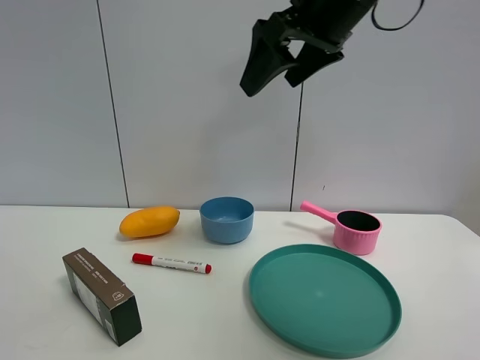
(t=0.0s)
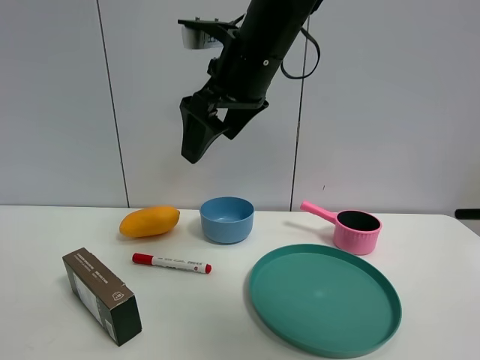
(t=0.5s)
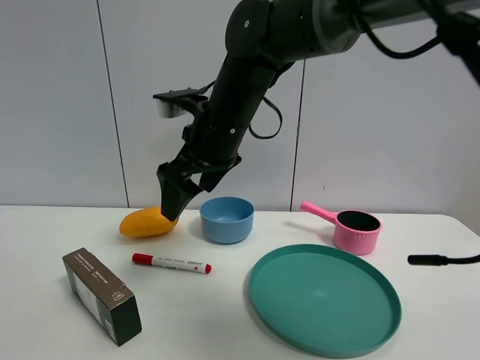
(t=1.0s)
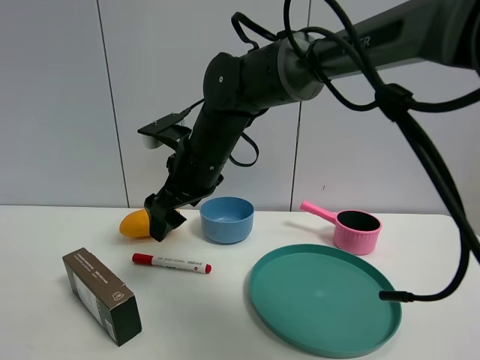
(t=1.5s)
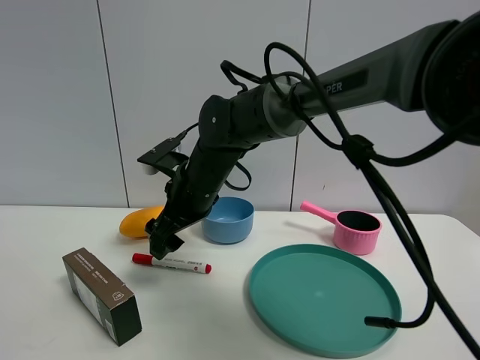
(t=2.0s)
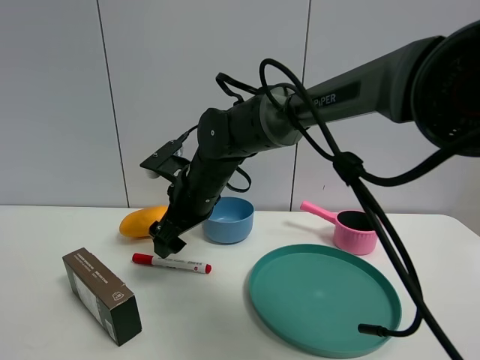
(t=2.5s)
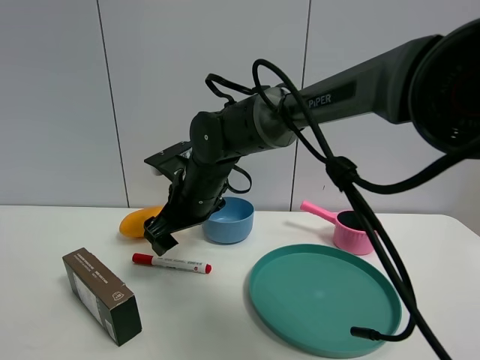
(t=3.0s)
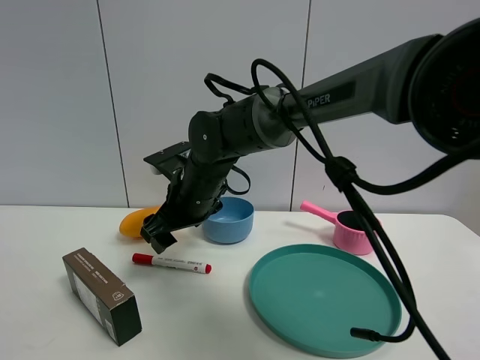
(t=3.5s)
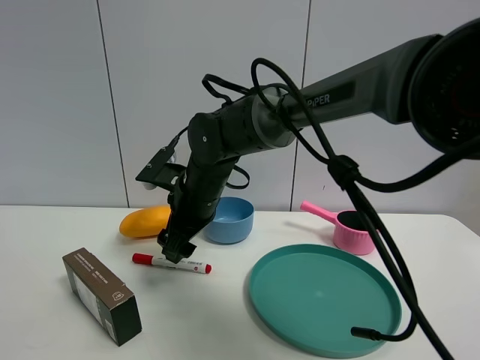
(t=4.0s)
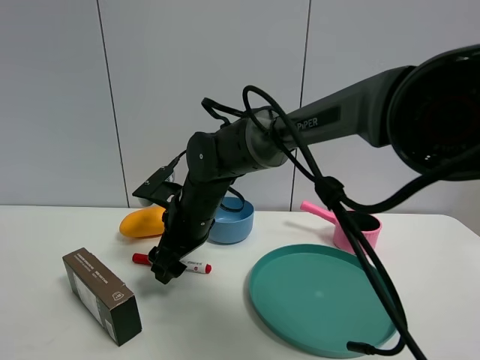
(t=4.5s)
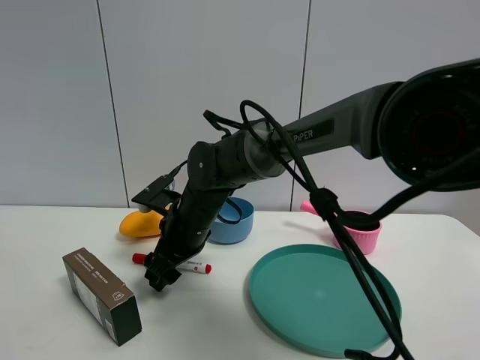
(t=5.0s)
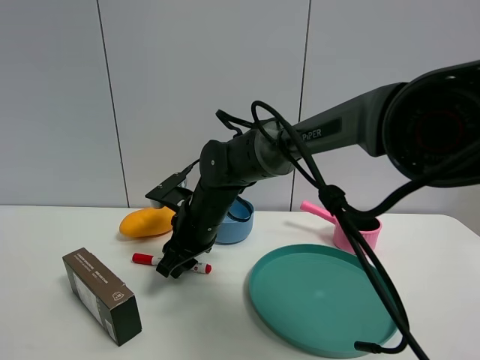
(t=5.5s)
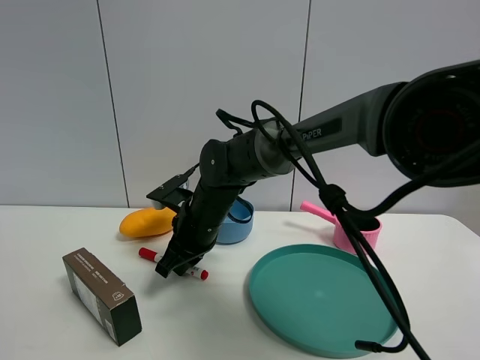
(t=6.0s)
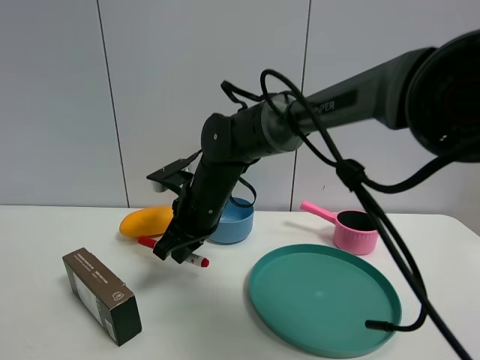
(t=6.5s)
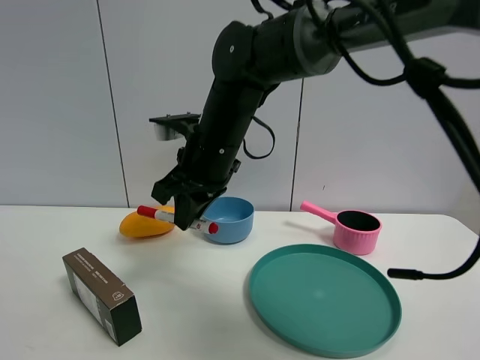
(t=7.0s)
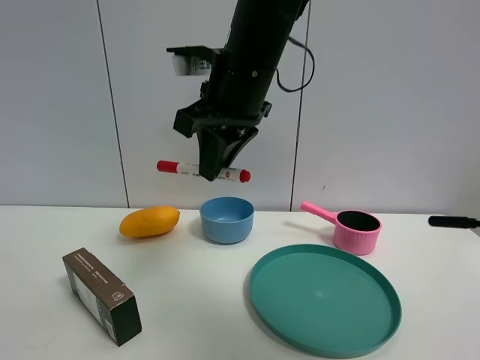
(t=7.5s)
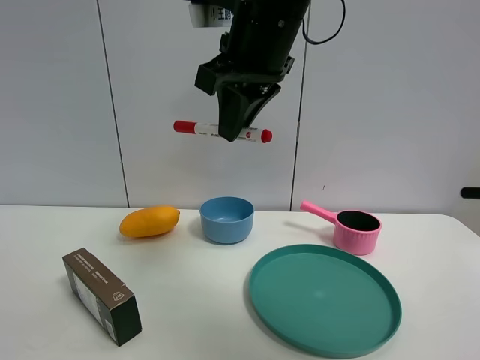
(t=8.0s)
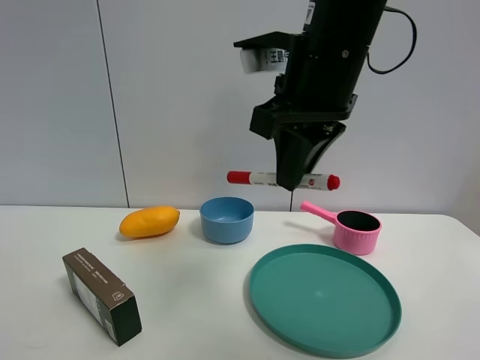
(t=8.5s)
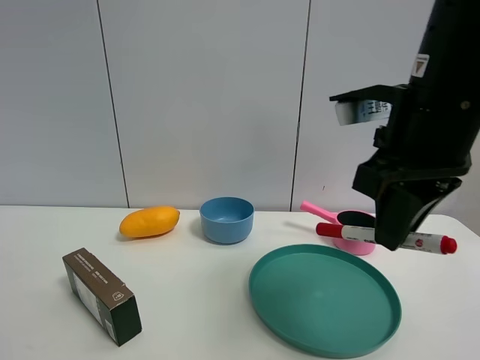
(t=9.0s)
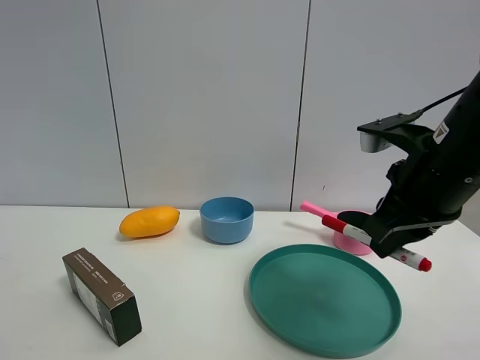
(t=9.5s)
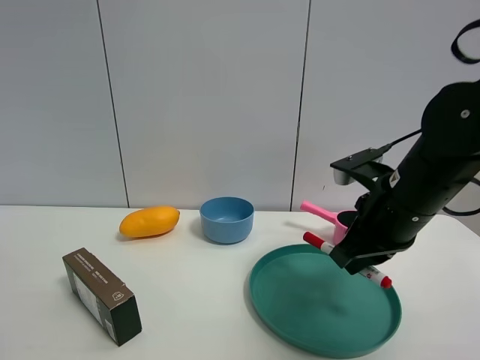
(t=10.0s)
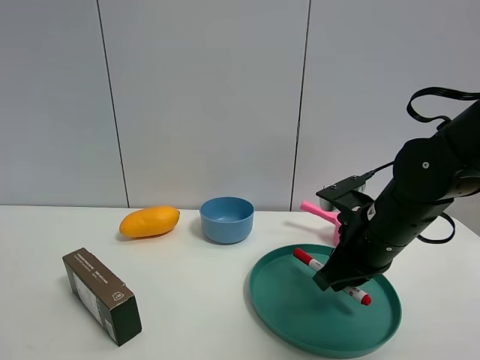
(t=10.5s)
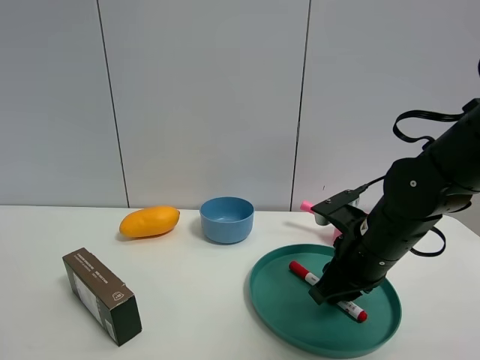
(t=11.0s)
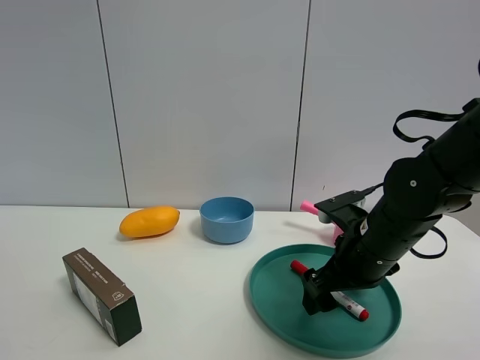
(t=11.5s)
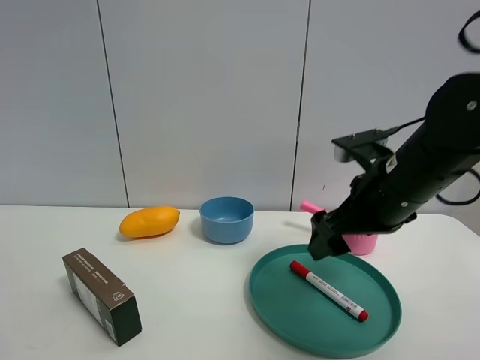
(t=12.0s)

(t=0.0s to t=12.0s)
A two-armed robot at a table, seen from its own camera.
Task of the whole recording: the gripper move the object.
Step, t=0.0s - t=5.5s: Grasp the red marker pen with the right gripper.
Step, t=6.0s - t=12.0s: Place the red marker pen into the green plate with the right gripper.
t=0.0s - t=2.0s: The right gripper travels downward and to the left by about 25 cm.
t=2.0s - t=4.0s: There are only small adjustments of the grippers.
t=4.0s - t=6.0s: The right gripper closes.
t=6.0s - t=8.0s: The right gripper travels upward by approximately 25 cm.
t=8.0s - t=10.0s: The right gripper shifts roughly 25 cm downward and to the right.
t=10.0s - t=12.0s: The right gripper opens.

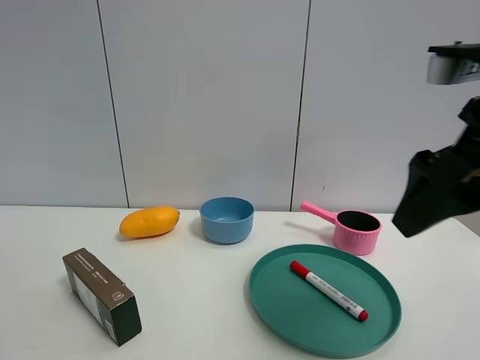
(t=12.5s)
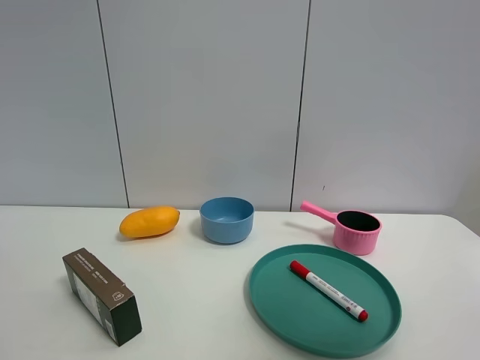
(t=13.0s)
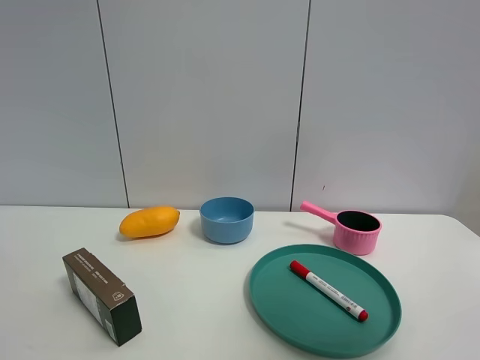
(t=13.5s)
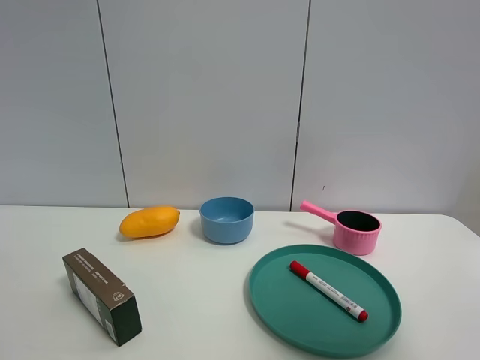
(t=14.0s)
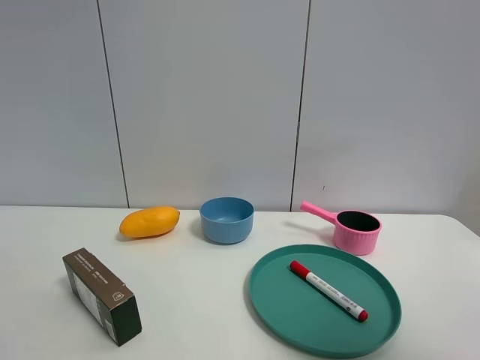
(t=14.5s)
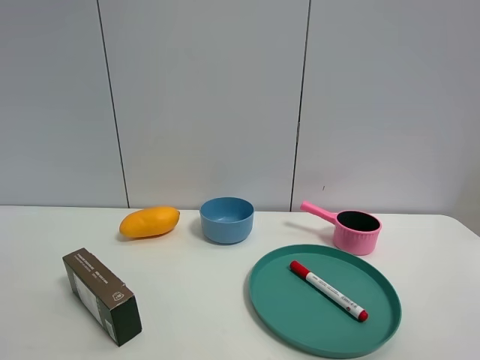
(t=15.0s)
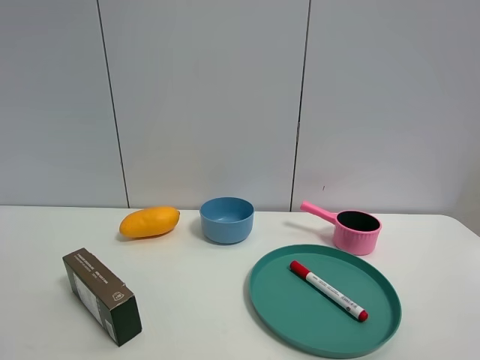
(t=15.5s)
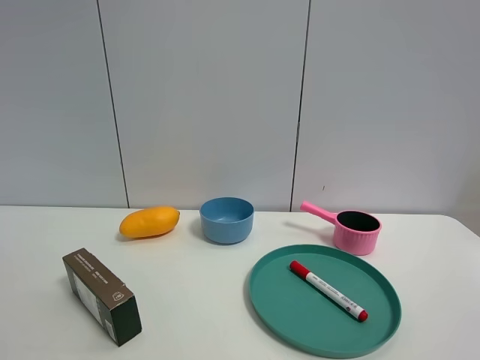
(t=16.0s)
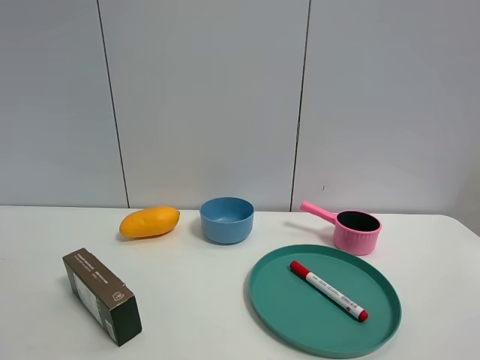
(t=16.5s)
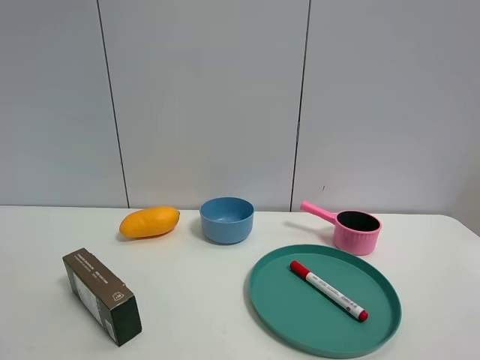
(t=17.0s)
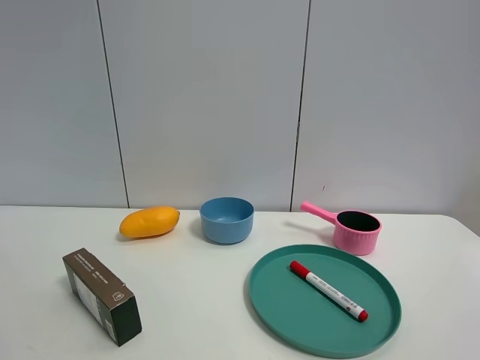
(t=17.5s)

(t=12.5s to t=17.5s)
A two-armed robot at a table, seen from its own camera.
Task of the whole recording: the gripper move the object.
t=12.5s - t=15.0s: The right gripper shifts some 20 cm backward and to the right.
